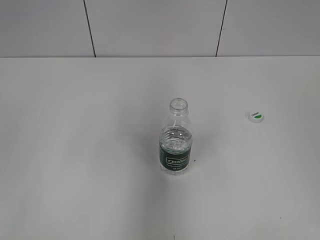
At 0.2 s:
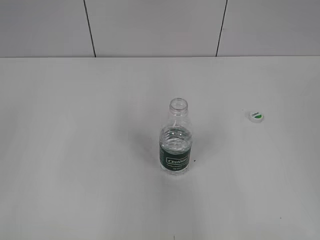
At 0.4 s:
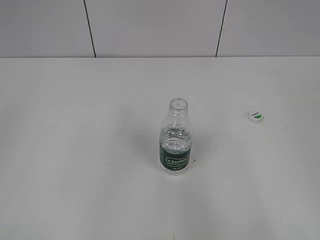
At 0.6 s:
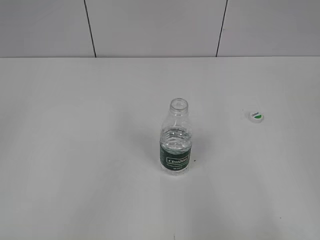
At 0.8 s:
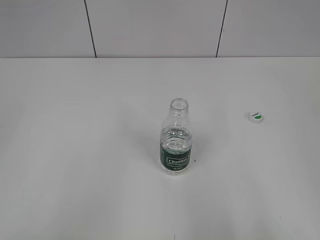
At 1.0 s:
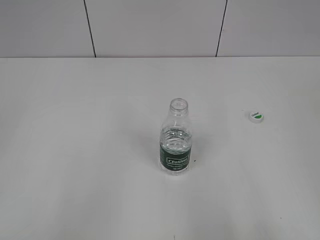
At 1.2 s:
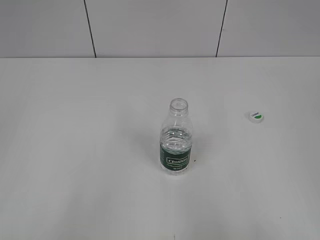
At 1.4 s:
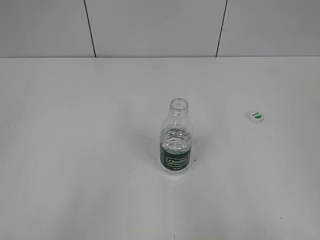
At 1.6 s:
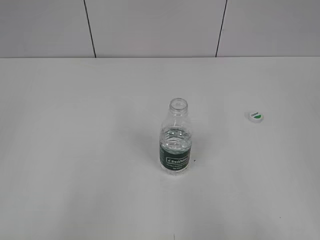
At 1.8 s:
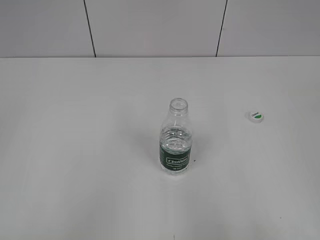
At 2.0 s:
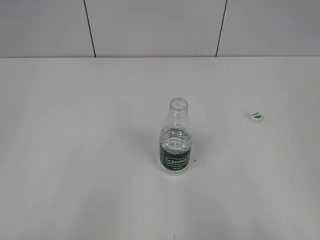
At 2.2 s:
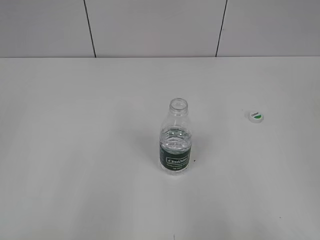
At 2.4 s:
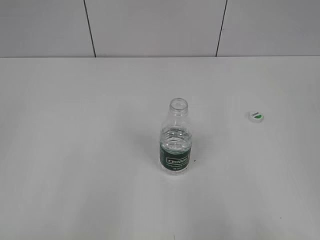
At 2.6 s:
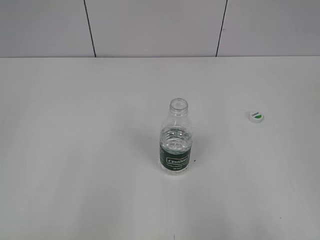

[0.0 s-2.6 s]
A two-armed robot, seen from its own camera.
0.0 to 1.2 s: The left gripper moves backward, about 20 cm; the right gripper shifts roughly 15 cm backward and downward.
